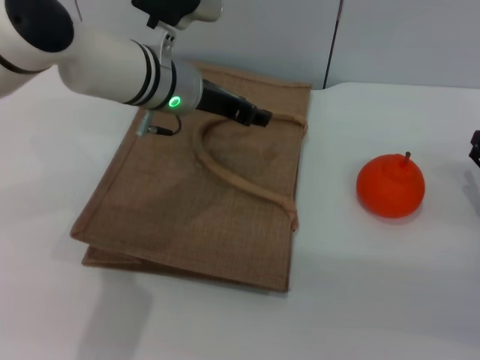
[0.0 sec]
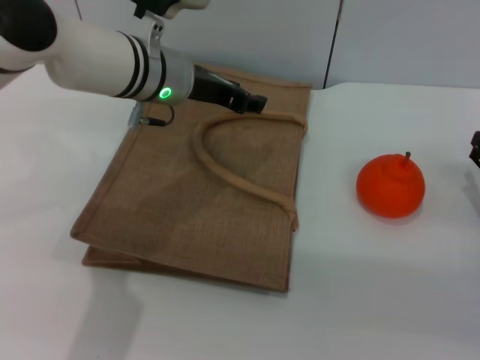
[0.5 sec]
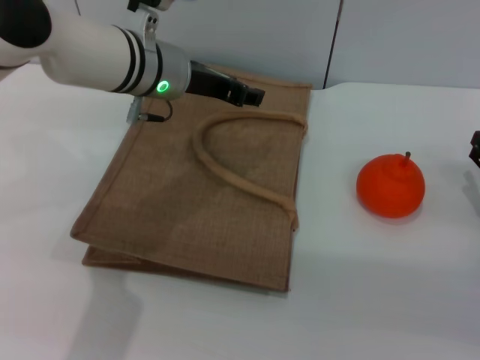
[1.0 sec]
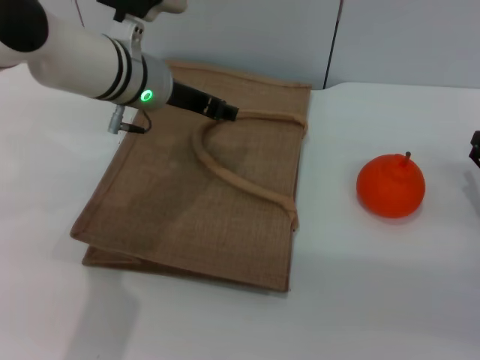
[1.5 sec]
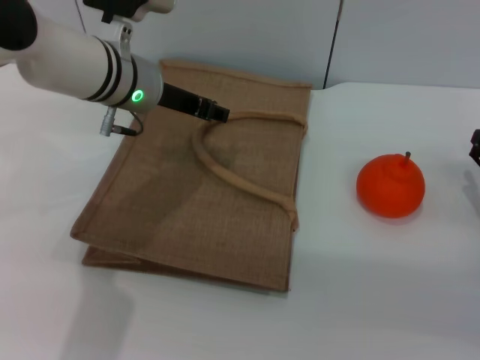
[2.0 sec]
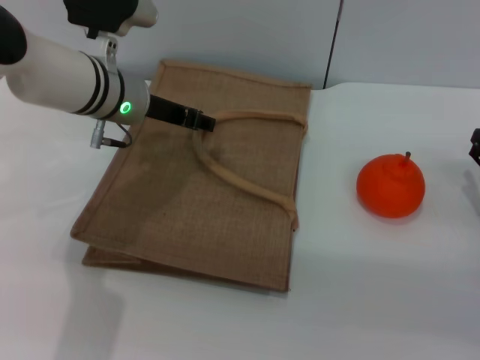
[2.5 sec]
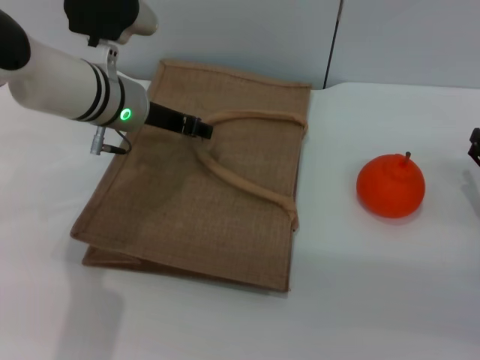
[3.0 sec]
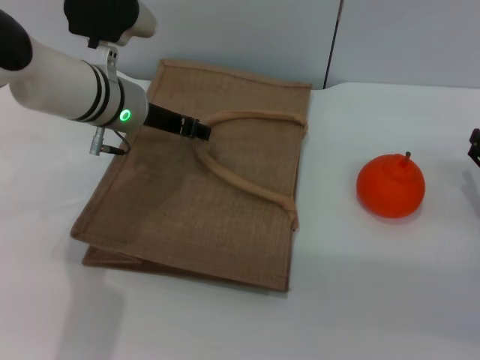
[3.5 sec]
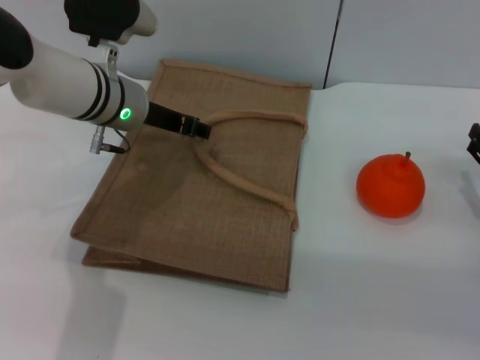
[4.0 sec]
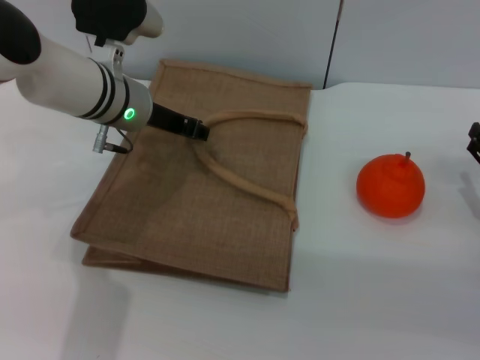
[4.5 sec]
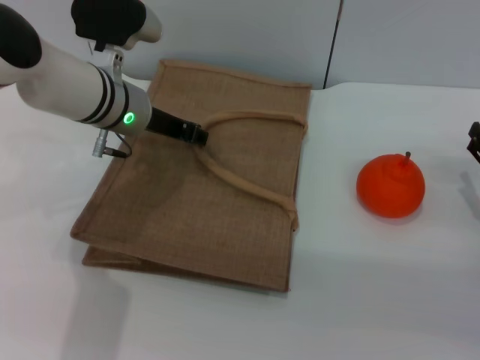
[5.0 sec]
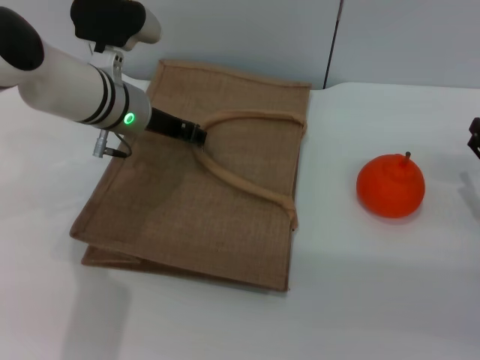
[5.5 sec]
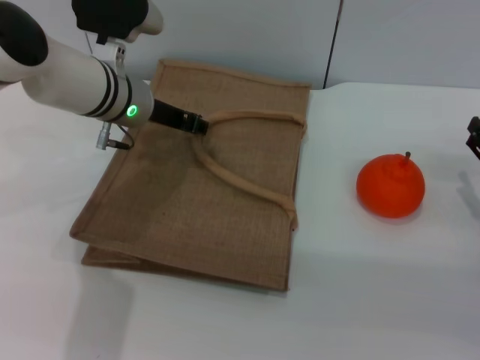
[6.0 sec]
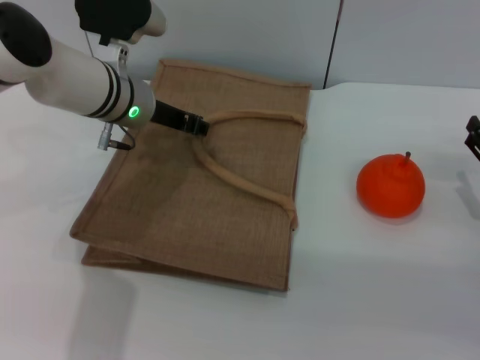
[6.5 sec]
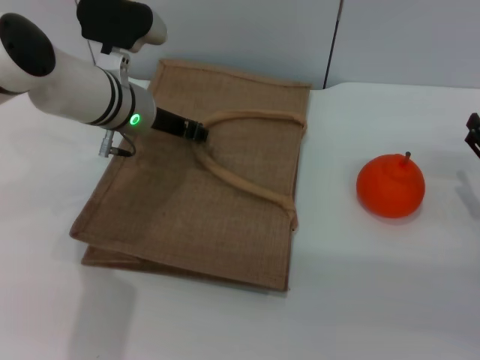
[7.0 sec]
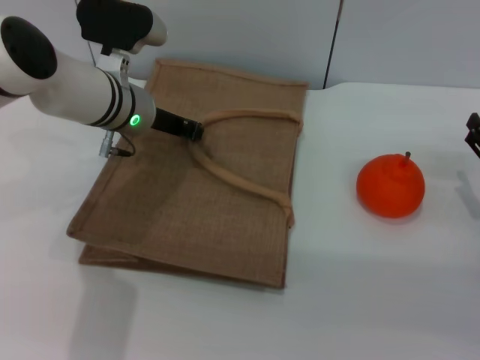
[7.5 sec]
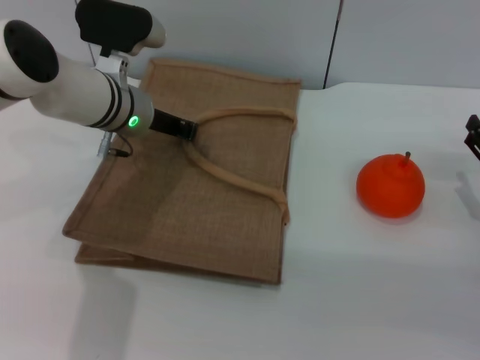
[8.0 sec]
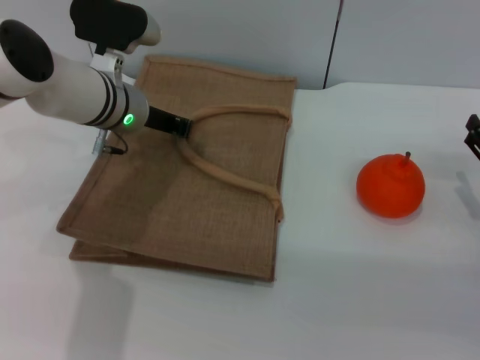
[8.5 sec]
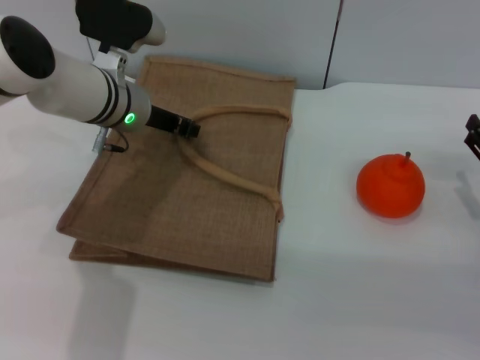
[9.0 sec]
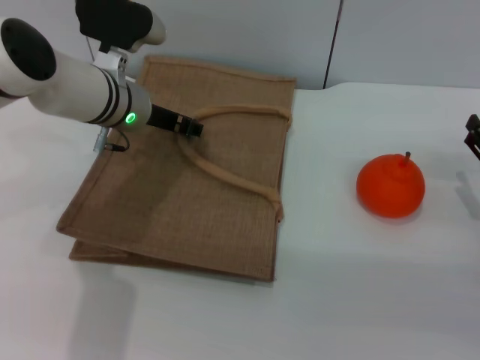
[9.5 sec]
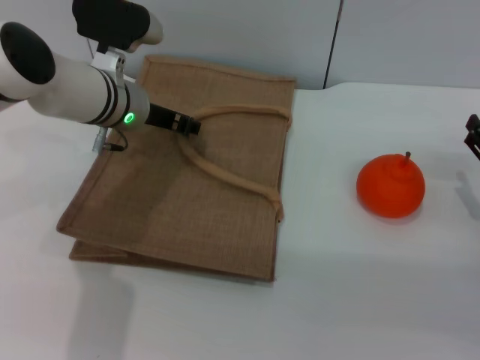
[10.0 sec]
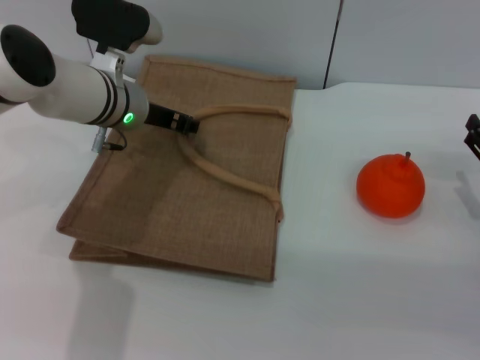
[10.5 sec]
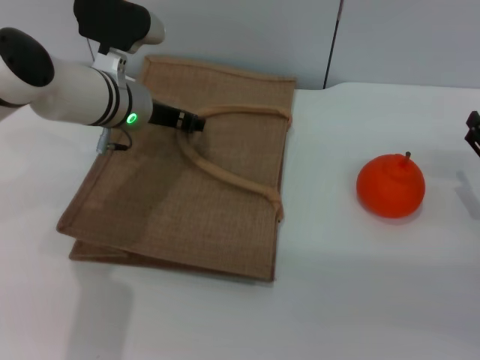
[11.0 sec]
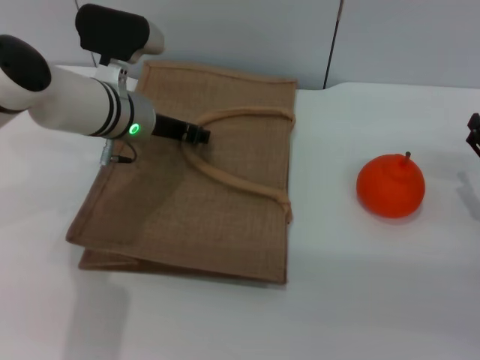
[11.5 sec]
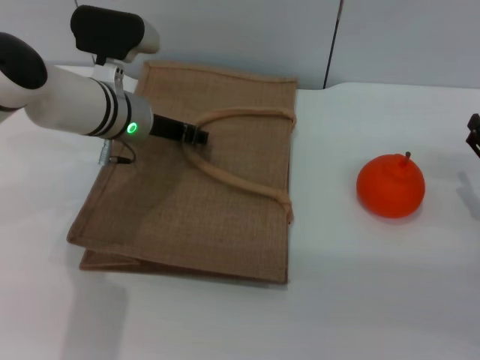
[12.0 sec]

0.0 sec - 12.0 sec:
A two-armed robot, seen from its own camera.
Task of the whole recording: pick up the orange from the table and place it in the brown handbag.
0.0 sec - 4.0 sec: There are only small adjustments of the grippers.
4.0 sec - 6.0 sec: Both grippers stay put.
6.0 sec - 8.0 sec: The left gripper closes its fingers.
8.0 sec - 10.0 sec: The left gripper opens.
10.0 sec - 12.0 sec: The grippers stay close to where they were, moving slightly.

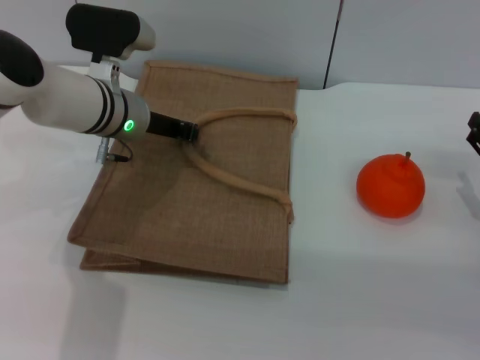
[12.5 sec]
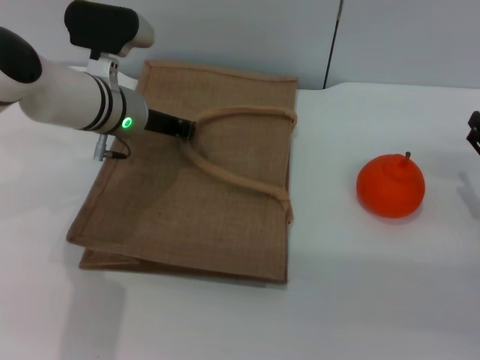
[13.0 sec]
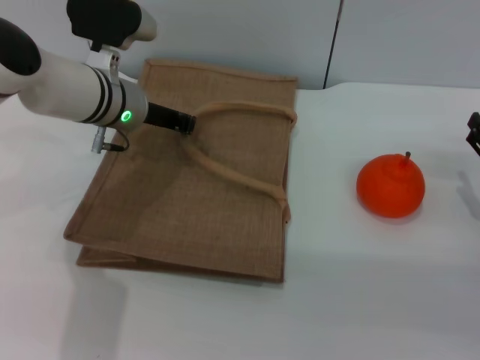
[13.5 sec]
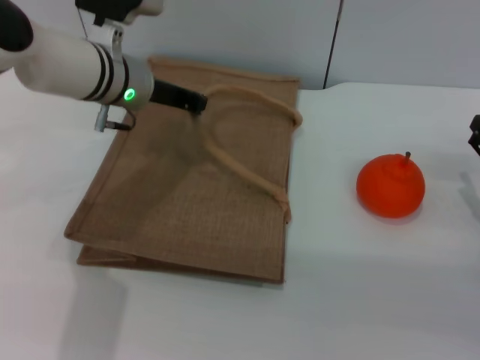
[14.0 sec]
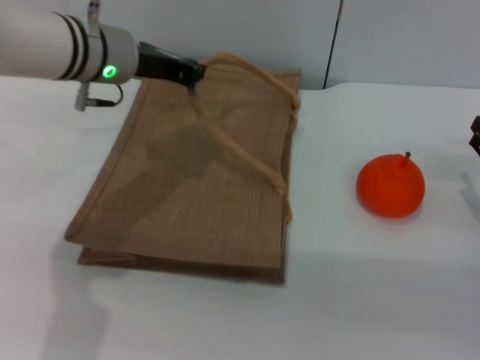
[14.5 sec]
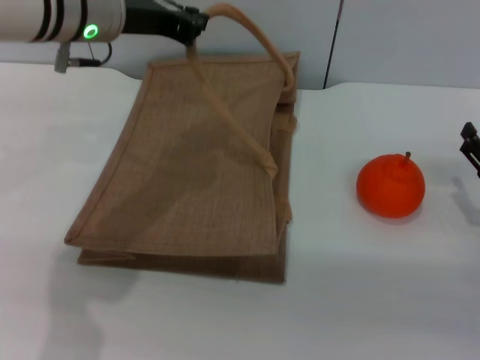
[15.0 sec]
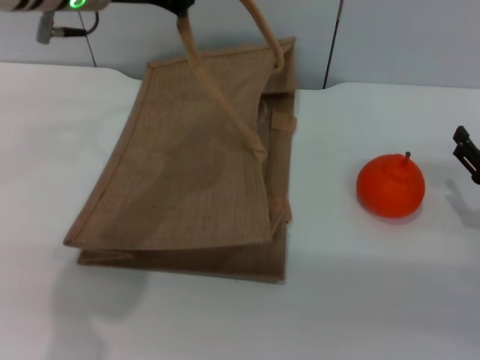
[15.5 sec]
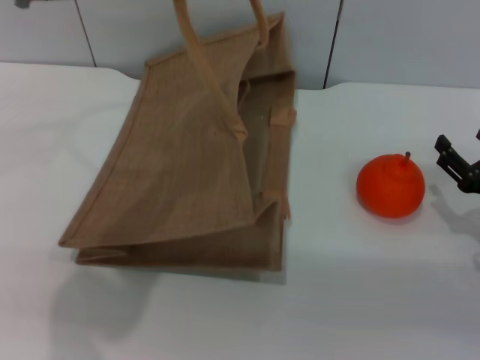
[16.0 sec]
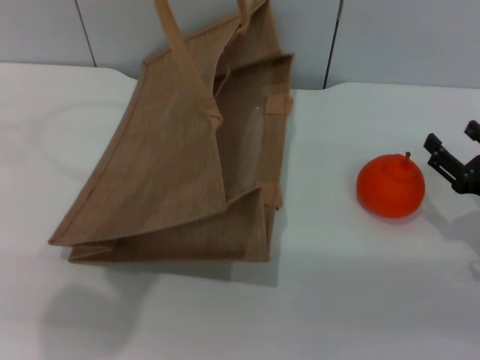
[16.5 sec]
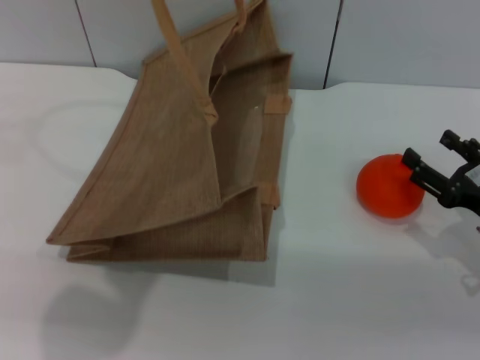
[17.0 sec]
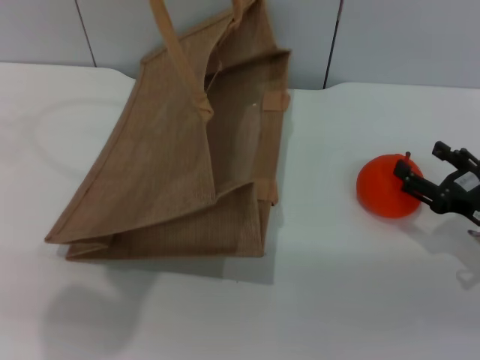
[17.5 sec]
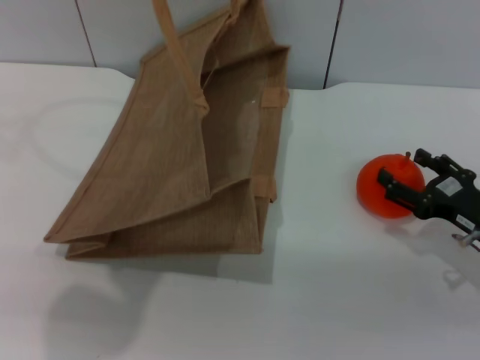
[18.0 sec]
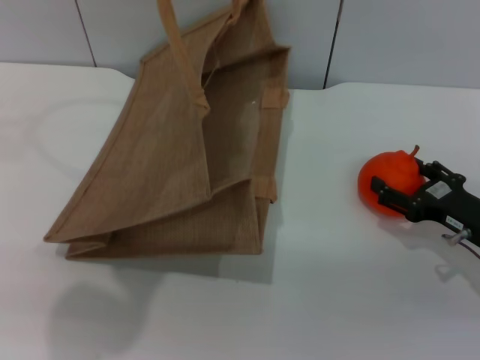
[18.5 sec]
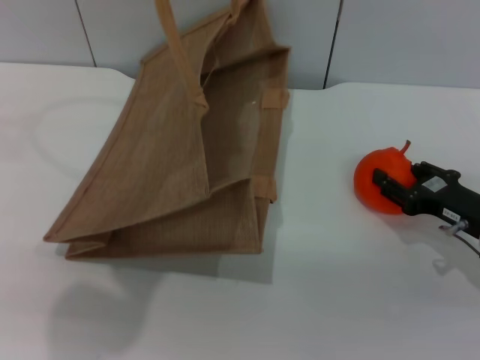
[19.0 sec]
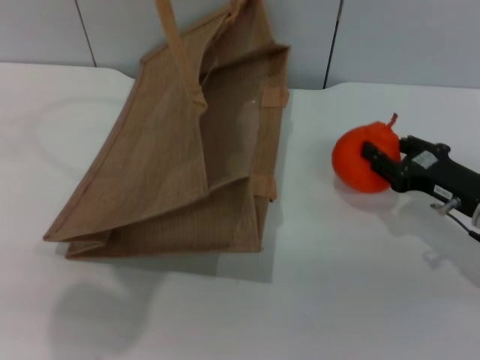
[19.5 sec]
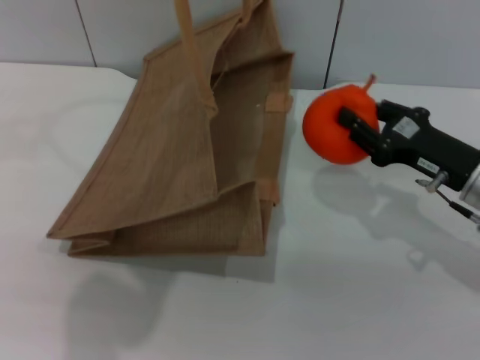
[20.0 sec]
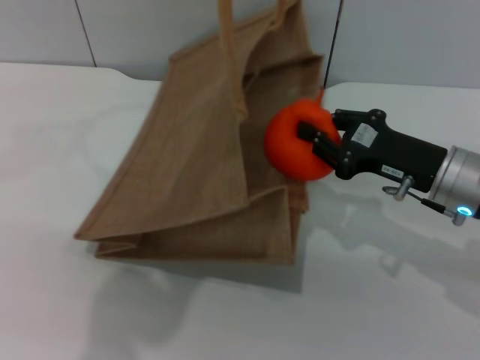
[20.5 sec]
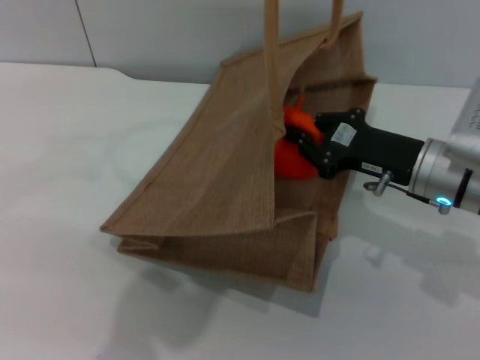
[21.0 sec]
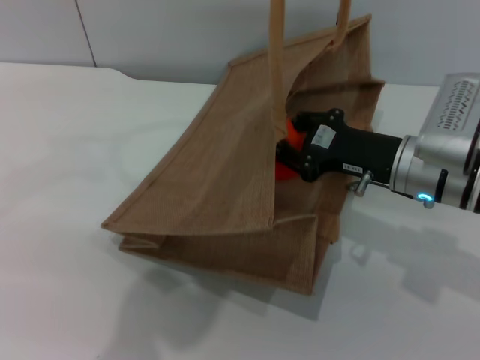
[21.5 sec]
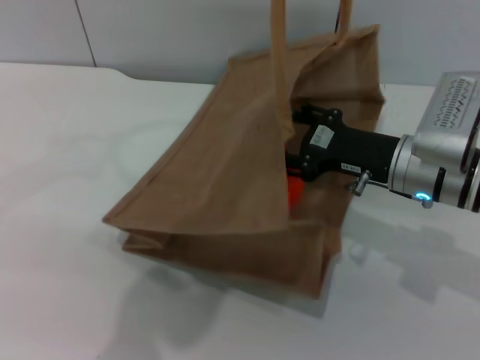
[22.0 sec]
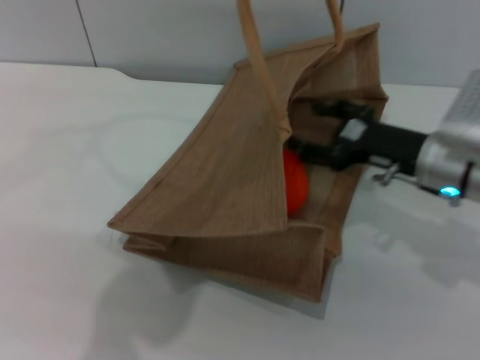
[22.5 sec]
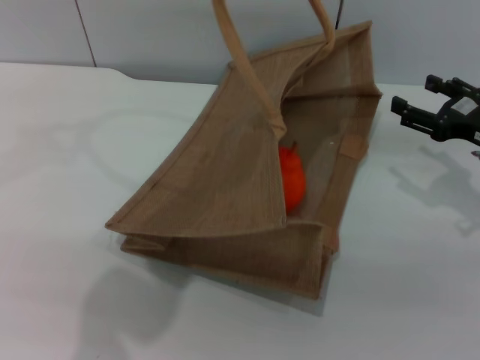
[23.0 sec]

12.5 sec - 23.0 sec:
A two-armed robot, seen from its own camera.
Task of the whole recording: pick up the orange from the table and place it in the brown handbag.
Step, 12.5 sec - 16.0 sec: Lift the woven bag with the left gripper to open it.
Step, 16.5 sec - 19.5 sec: Pick up the orange with the right gripper.
Step, 20.0 sec - 22.5 sec: Place the orange into the woven bag with the right gripper.
12.5 sec - 14.5 sec: The left gripper heads upward, covering some 5 cm, and closes up.
14.5 sec - 16.5 sec: The left gripper shifts about 15 cm upward and backward.
19.0 sec - 21.0 sec: The left gripper travels to the right by about 10 cm; the right gripper shifts some 10 cm to the left and upward, and closes its fingers.
21.0 sec - 23.0 sec: The left gripper moves about 5 cm. The right gripper goes about 10 cm to the right, and opens up.

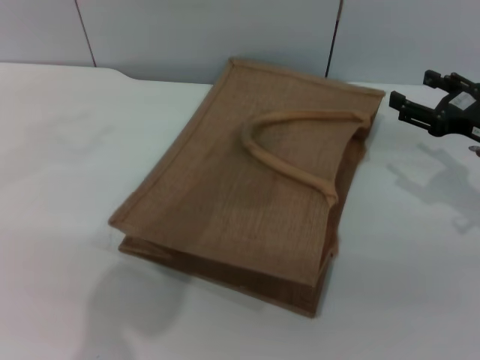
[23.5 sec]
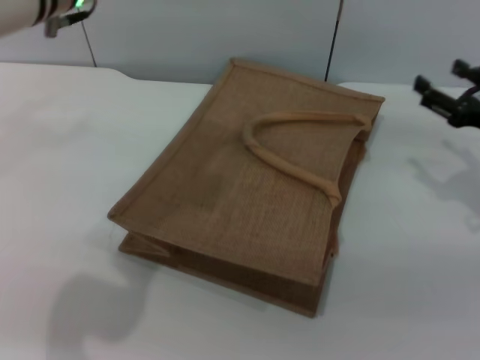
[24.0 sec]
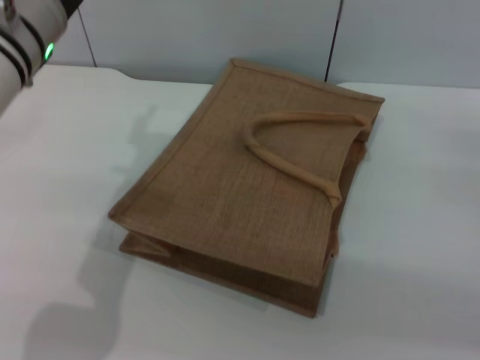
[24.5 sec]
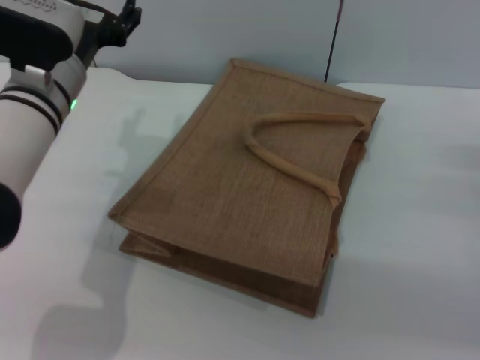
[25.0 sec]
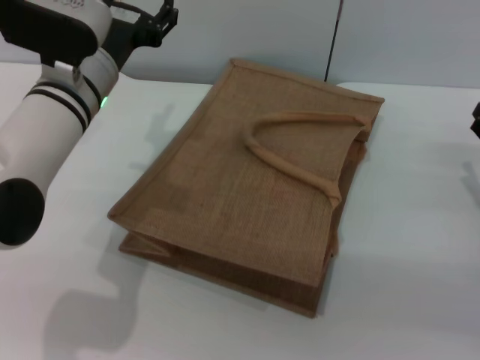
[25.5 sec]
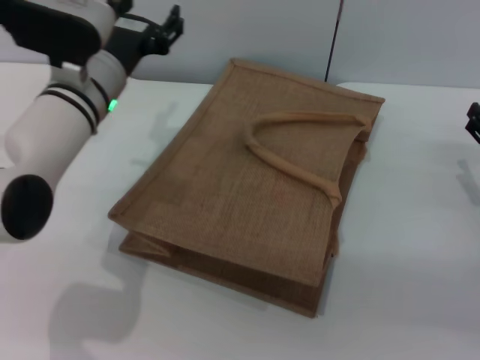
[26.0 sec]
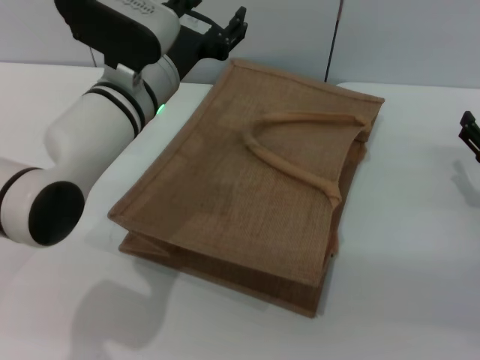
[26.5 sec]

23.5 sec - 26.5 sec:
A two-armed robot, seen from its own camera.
Task of the whole recording: pick up the orange from the table and place it in the brown handbag.
23.5 sec - 25.0 sec: The left gripper goes approximately 20 cm downward and to the left, and opens up. Meanwhile the right gripper shifts roughly 10 cm backward and downward.
25.0 sec - 26.5 sec: The left gripper moves to the right, roughly 5 cm.
